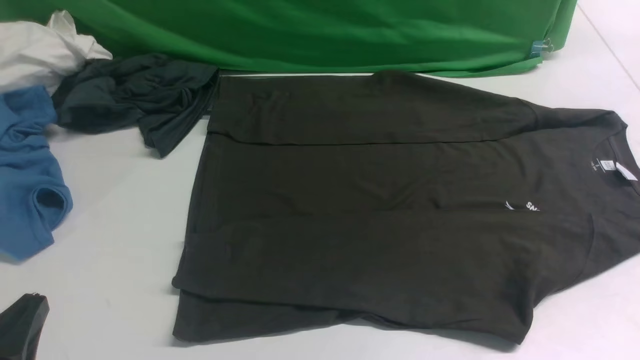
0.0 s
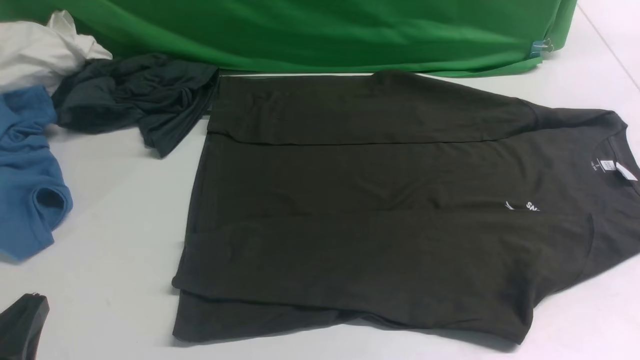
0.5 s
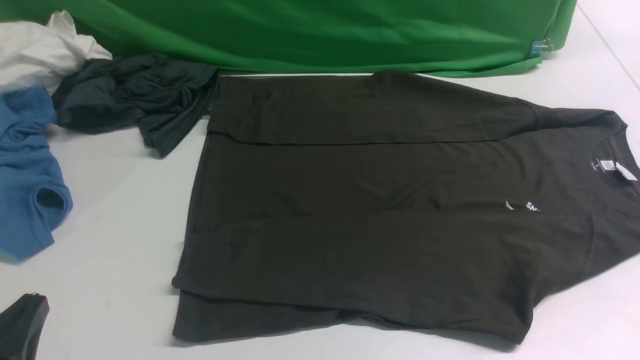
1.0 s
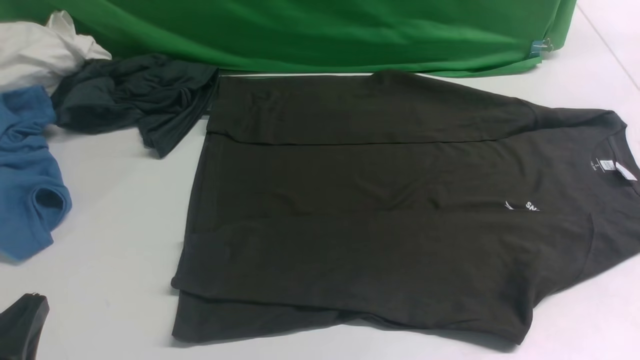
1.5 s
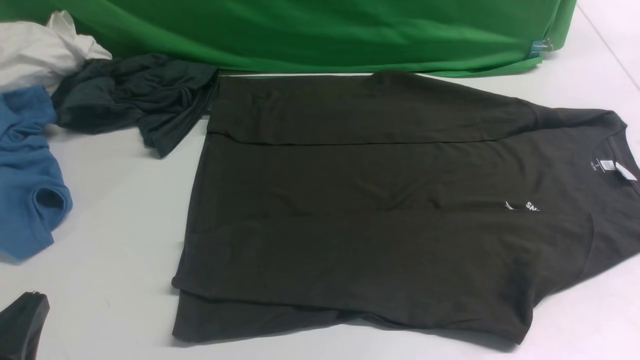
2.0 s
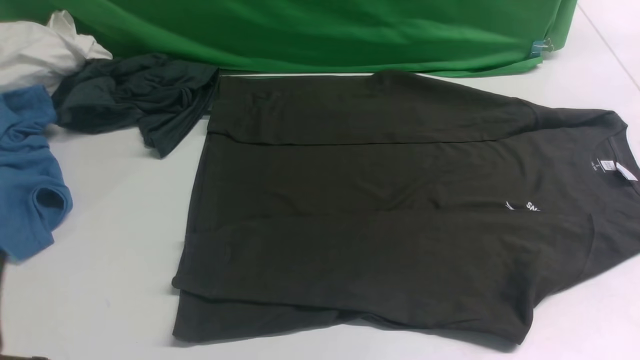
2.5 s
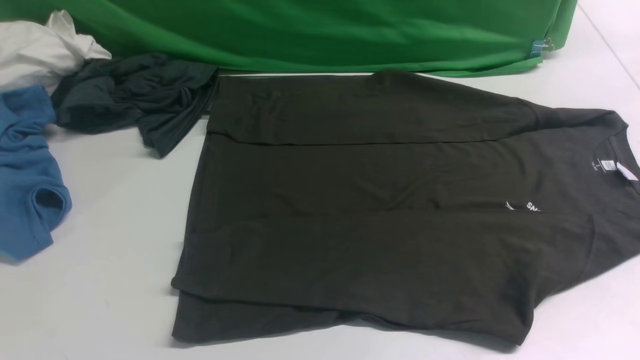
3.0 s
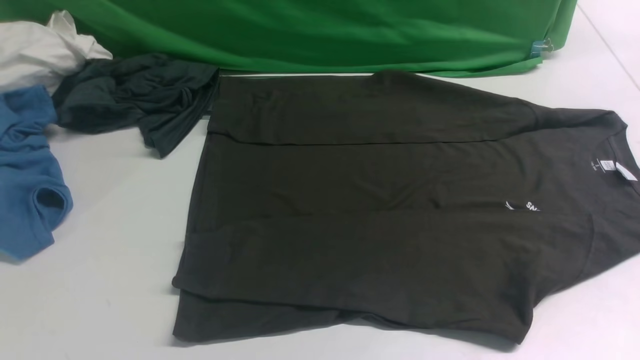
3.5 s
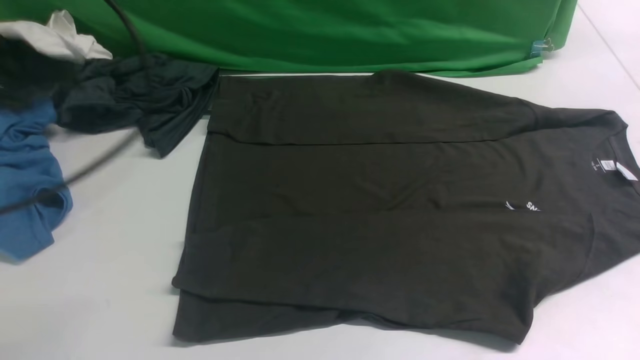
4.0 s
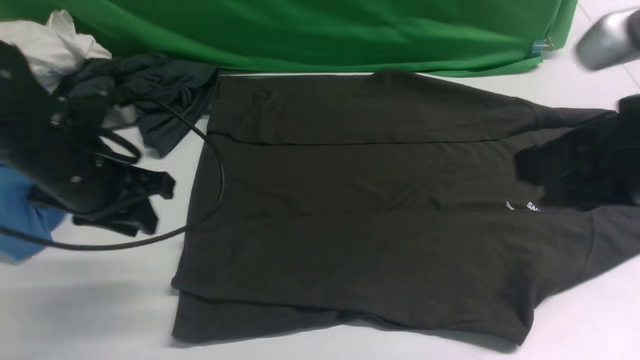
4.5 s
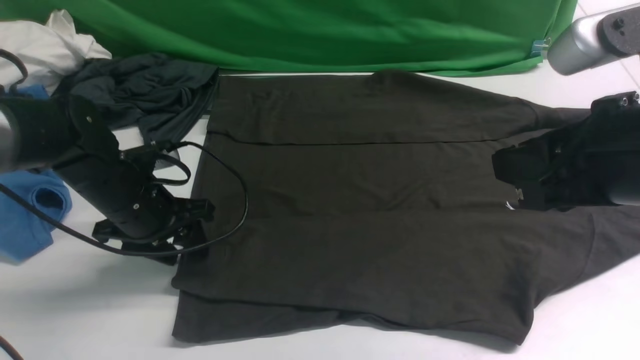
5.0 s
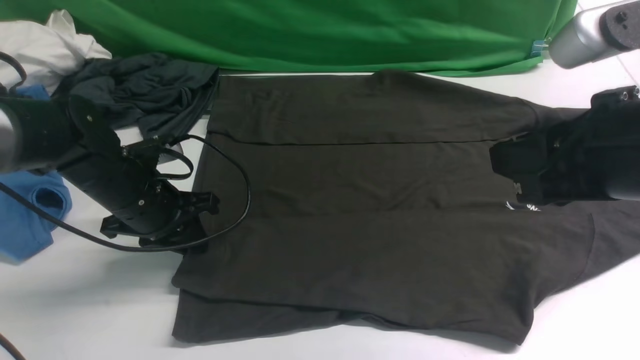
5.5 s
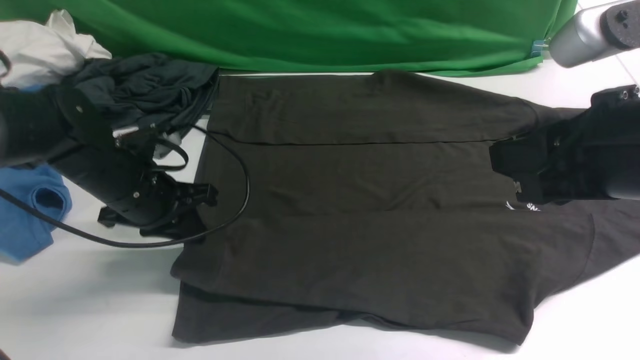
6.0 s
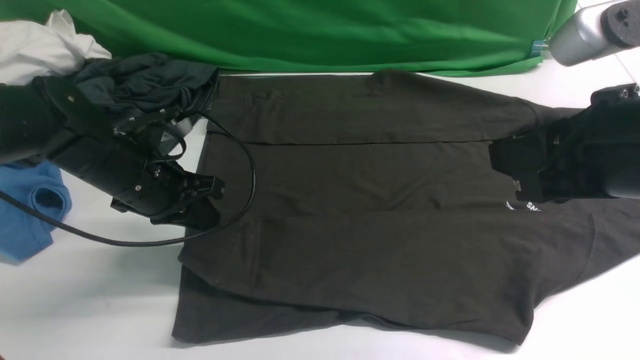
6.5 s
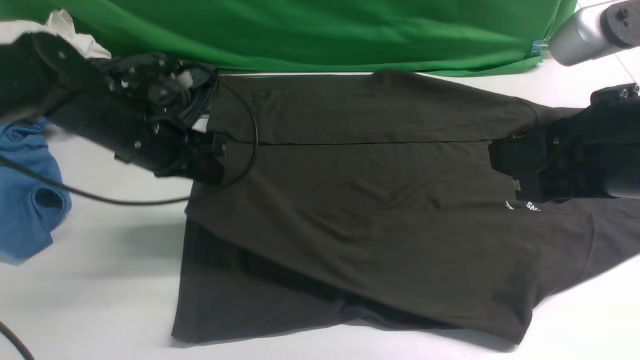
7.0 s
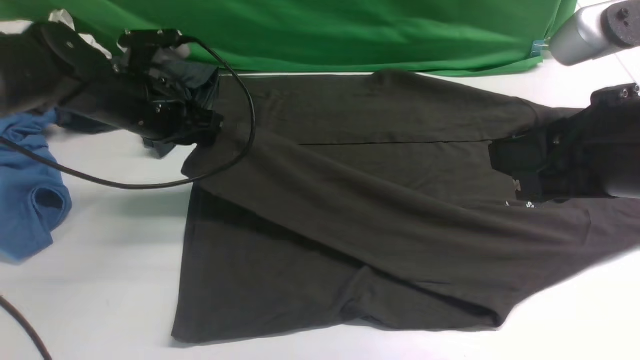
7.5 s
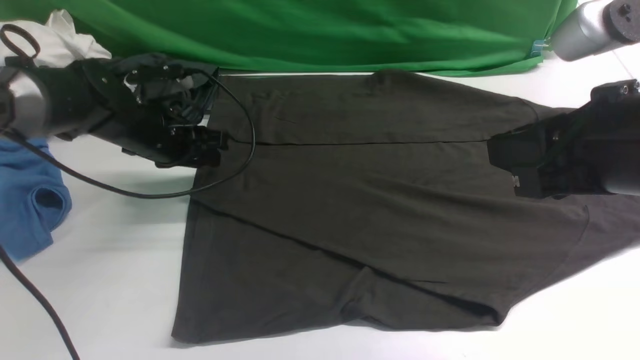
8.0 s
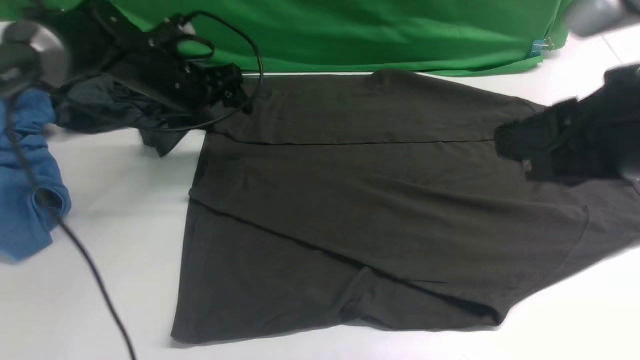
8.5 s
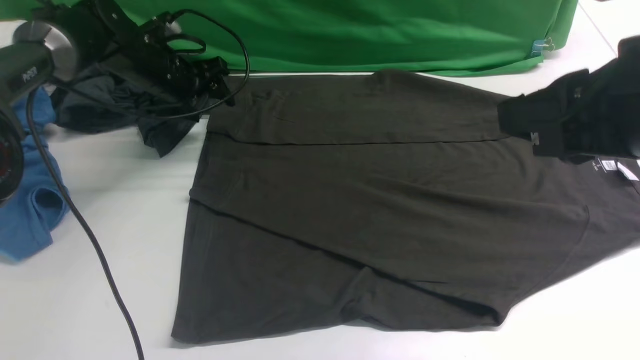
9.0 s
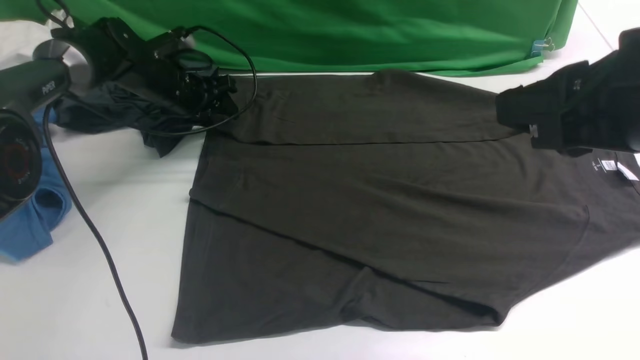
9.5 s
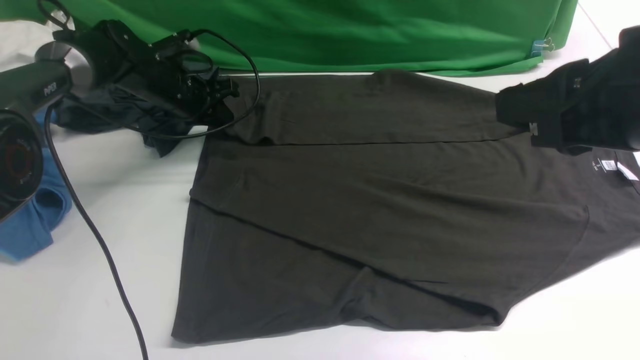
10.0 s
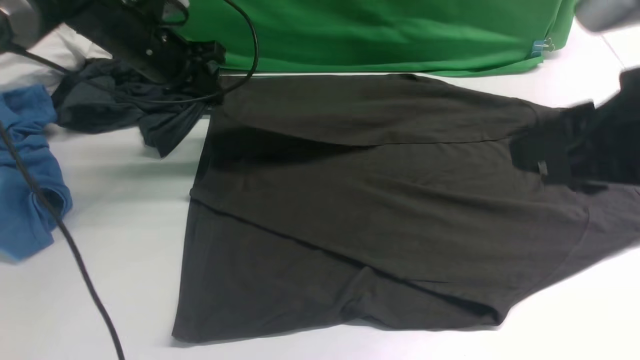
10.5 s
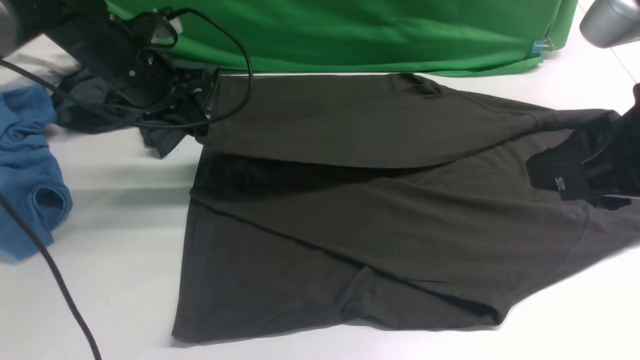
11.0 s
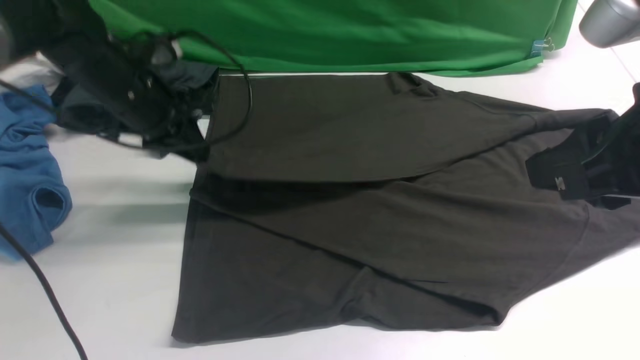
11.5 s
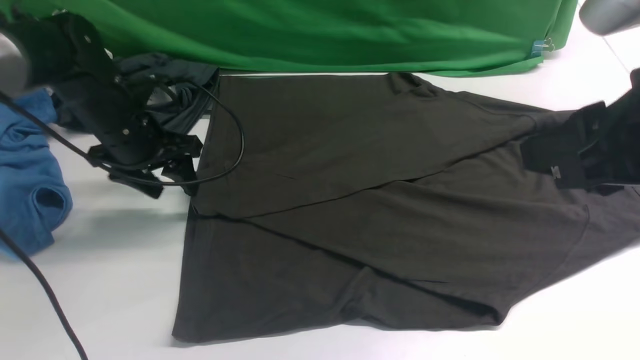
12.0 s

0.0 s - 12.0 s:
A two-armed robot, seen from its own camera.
Step, 0.0 s - 6.0 s: use the left arm to clamp the cuff closest to it.
Step, 6.5 s - 8.0 s: use the left arm to drag and place the cuff at the centered position on the left edge of the fabric.
Step, 8.5 s - 10.0 s: use the left arm to clamp the cuff farthest from it.
Step, 10.5 s - 12.0 s: use the left arm to drag and drop the cuff onto the cuff closest to the left arm.
0.0 s - 2.0 s: Neither gripper changes place.
2.0 s - 4.0 s: The left gripper moves forward and upward, about 25 cm.
4.0 s - 6.0 s: The right gripper is displaced to the left by some 10 cm; the left gripper goes some 20 cm downward and forward, and opens and closes again.
6.0 s - 8.0 s: The left gripper shifts some 10 cm forward, and opens.
8.0 s - 10.0 s: The left gripper moves forward, roughly 10 cm, and closes its fingers.
10.0 s - 12.0 s: The left gripper goes approximately 10 cm backward, and opens.

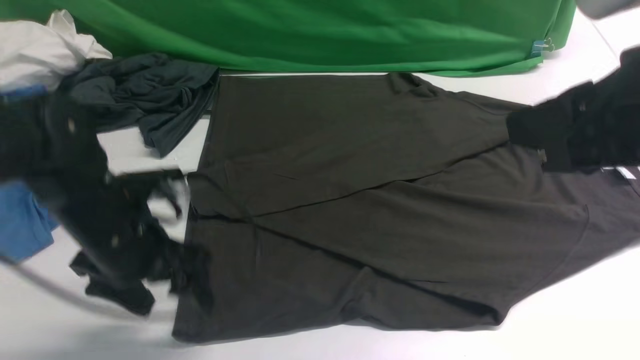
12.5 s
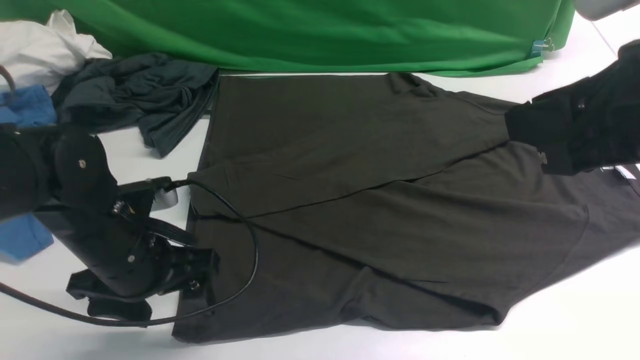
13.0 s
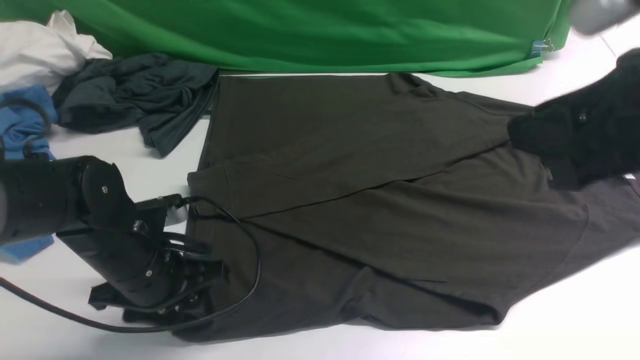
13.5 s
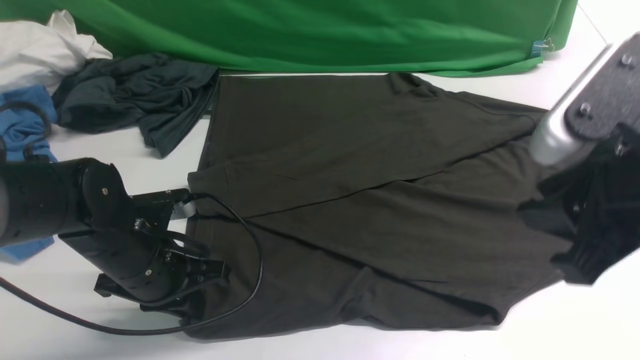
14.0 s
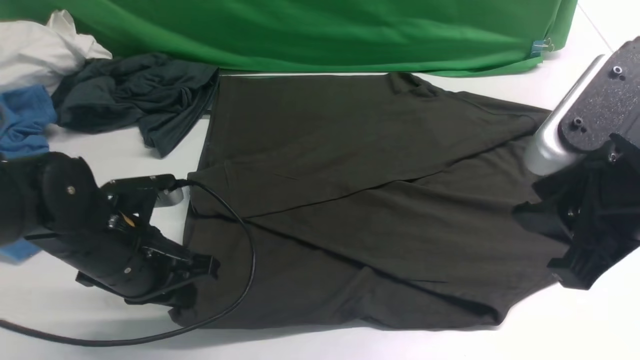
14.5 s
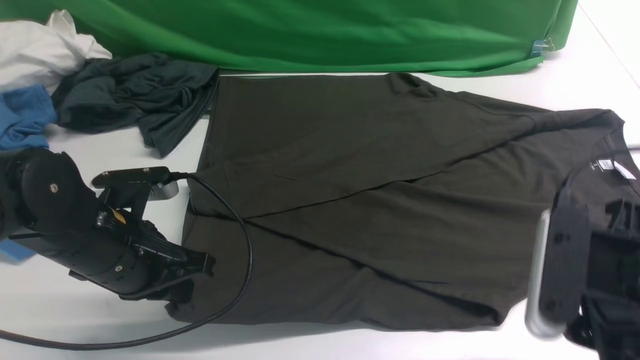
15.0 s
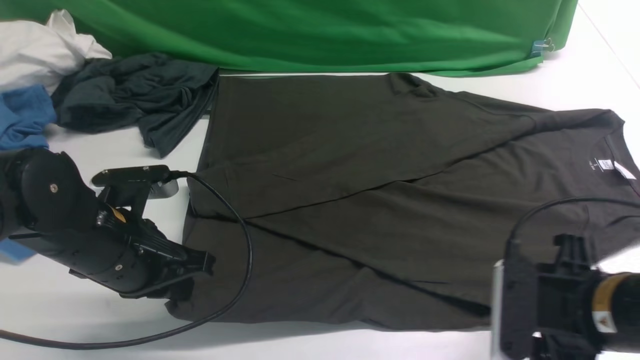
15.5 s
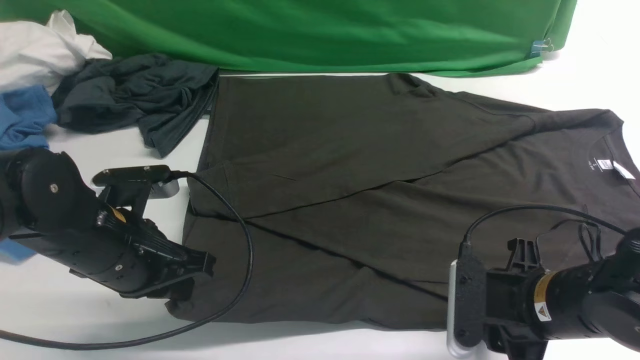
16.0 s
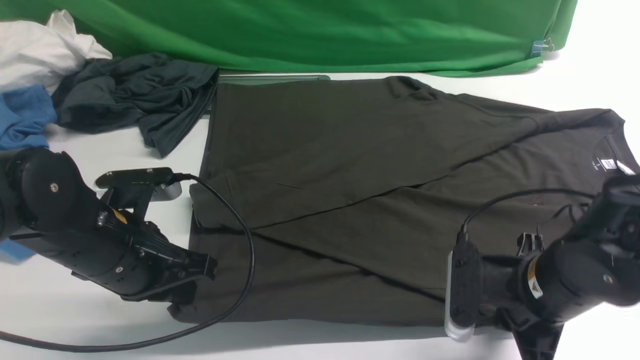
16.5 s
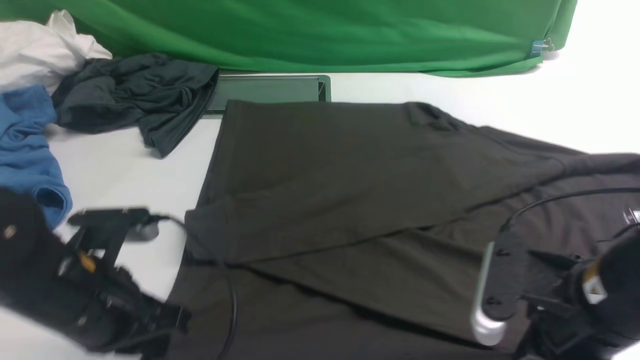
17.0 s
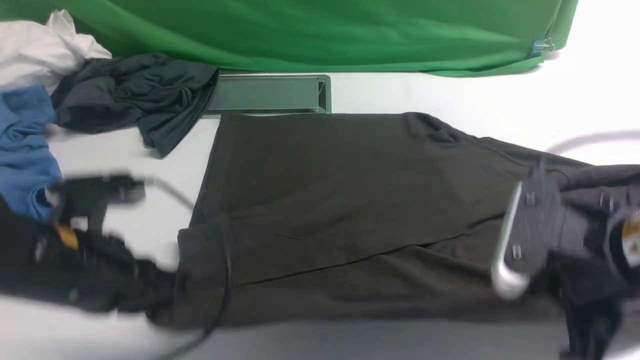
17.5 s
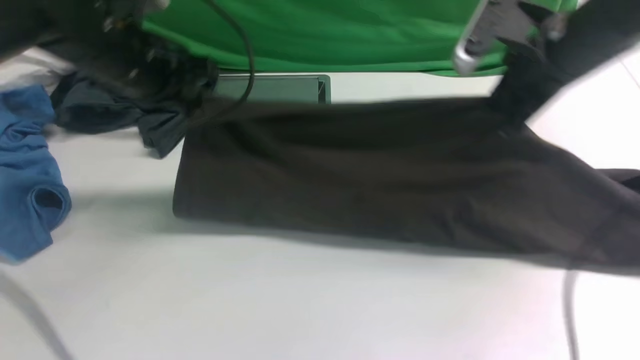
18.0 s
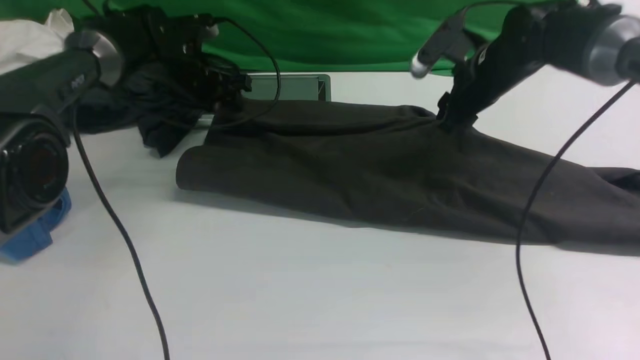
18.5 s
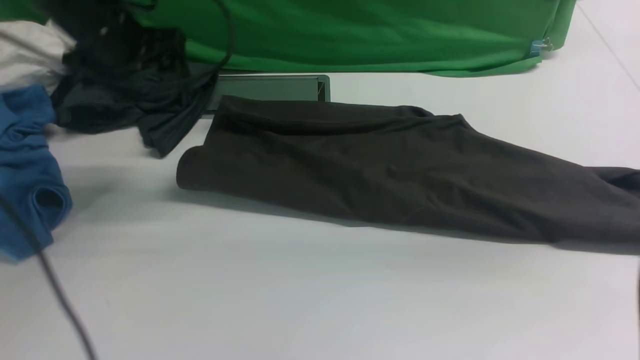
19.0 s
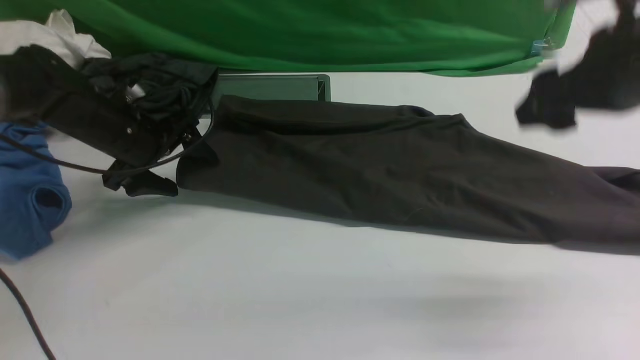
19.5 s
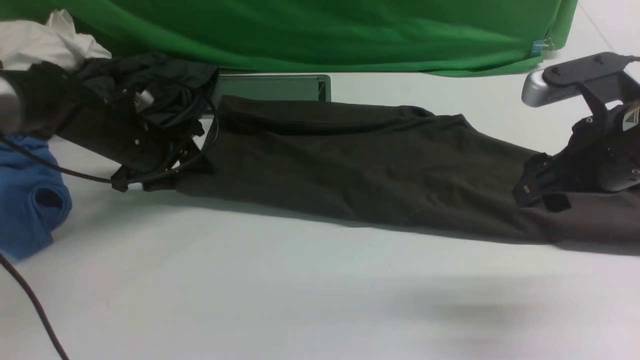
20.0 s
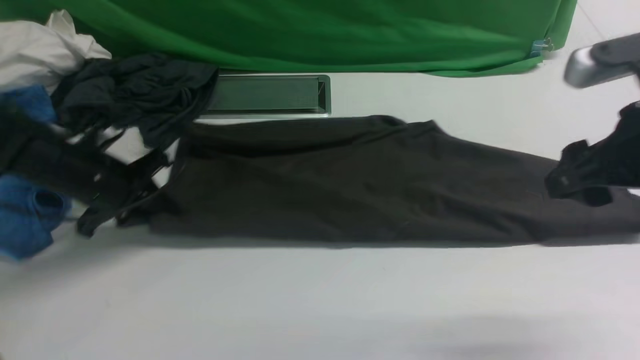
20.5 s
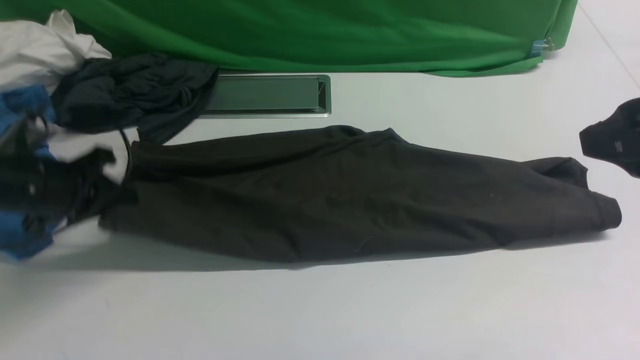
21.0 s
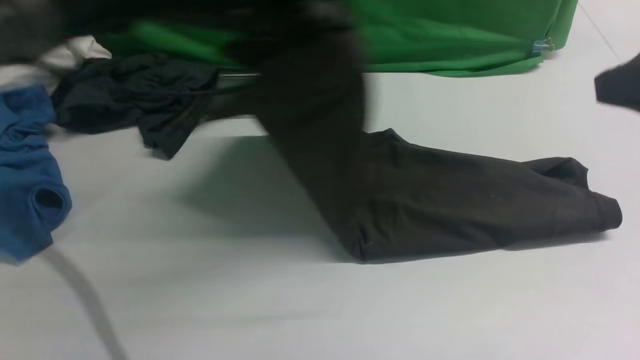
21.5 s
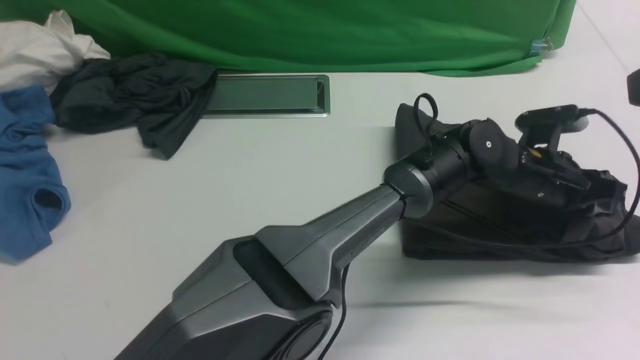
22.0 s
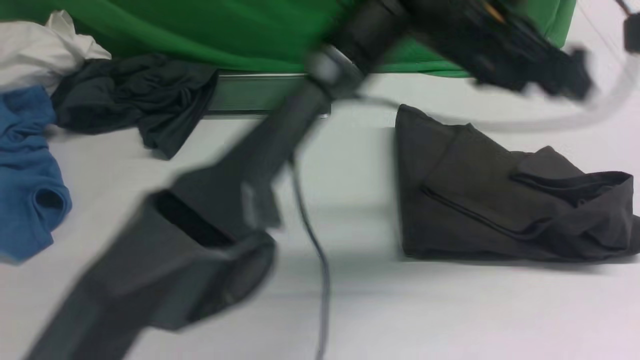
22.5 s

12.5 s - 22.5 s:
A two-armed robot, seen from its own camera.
Step, 12.5 s - 16.5 s: use both arms simultaneously to clamp the lower edge of the clothing fabric.
Step, 17.0 s - 18.5 s: use both arms to drag the lower edge of the fabric forward and fold it over the upper edge.
Step, 19.0 s - 20.5 s: Hold the left edge of the fabric with your left arm.
Step, 21.5 s - 22.0 s: Drag the left edge of the fabric to the left with your left arm and fold it to the right edge.
12.5 s - 14.5 s: The left gripper closes; the right gripper travels downward by some 5 cm.
14.5 s - 16.5 s: The right gripper is displaced downward by roughly 15 cm, and closes up.
16.5 s - 18.5 s: Both grippers travel together forward, some 25 cm. The right gripper opens its fingers. Meanwhile the left gripper opens its fingers.
18.5 s - 20.5 s: The left gripper moves backward and to the left, roughly 20 cm, and closes its fingers, while the right gripper moves backward, roughly 20 cm.
20.5 s - 22.5 s: The right gripper travels upward and backward by about 10 cm. Meanwhile the left gripper heads to the right and upward, covering roughly 40 cm, and opens its fingers.
